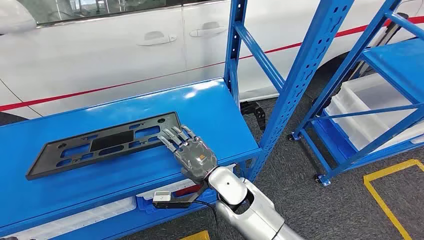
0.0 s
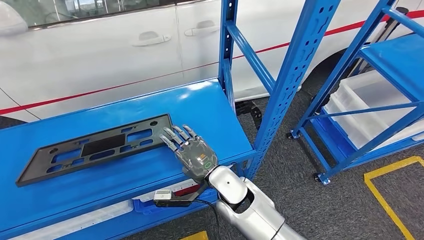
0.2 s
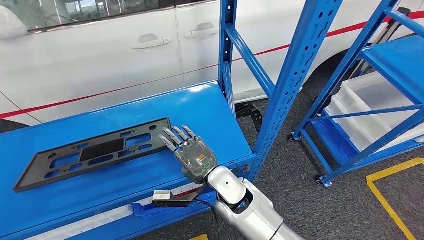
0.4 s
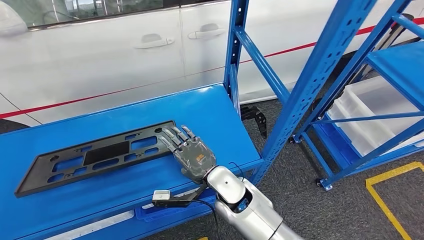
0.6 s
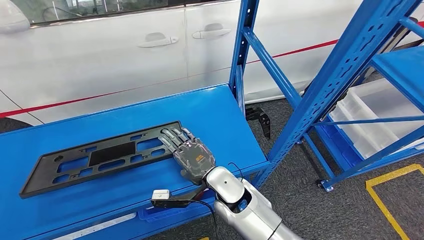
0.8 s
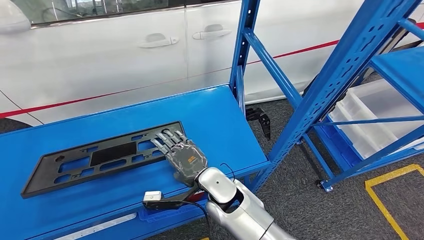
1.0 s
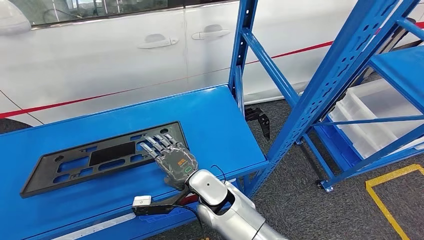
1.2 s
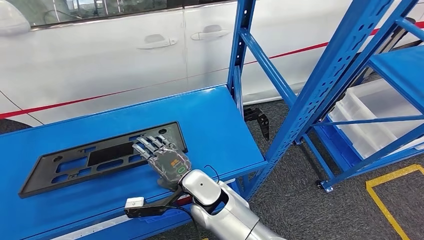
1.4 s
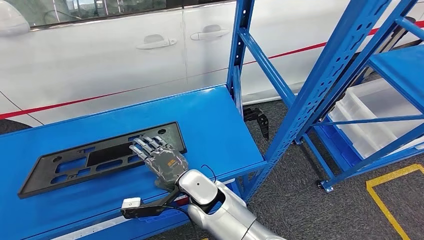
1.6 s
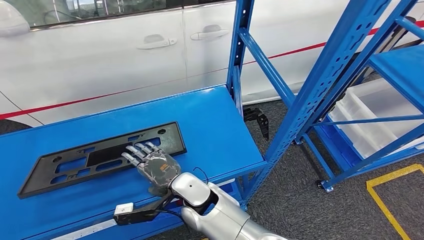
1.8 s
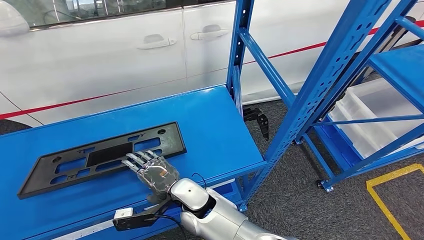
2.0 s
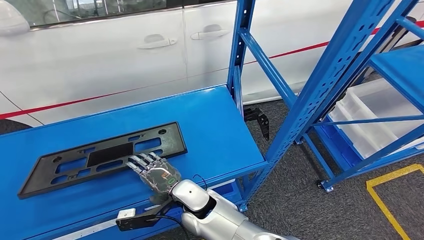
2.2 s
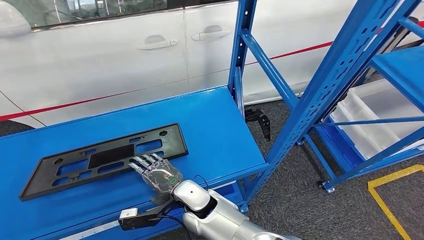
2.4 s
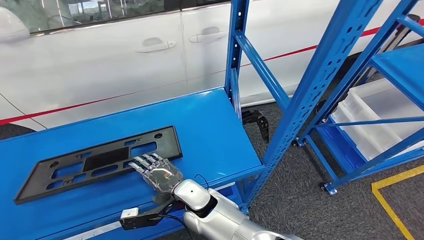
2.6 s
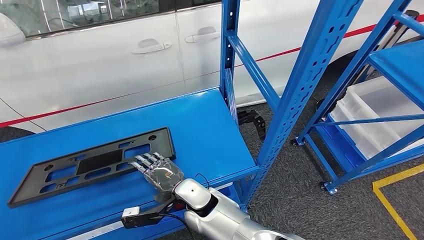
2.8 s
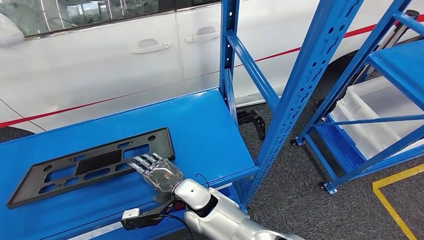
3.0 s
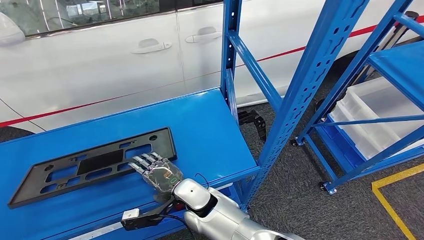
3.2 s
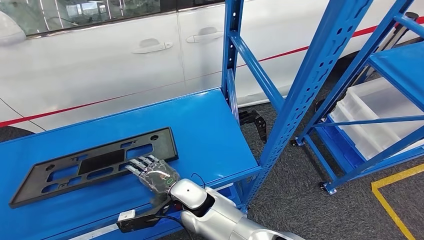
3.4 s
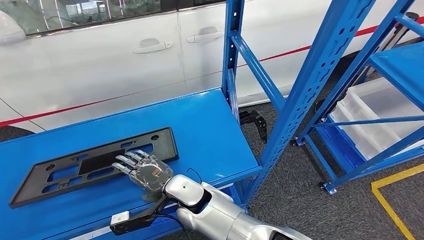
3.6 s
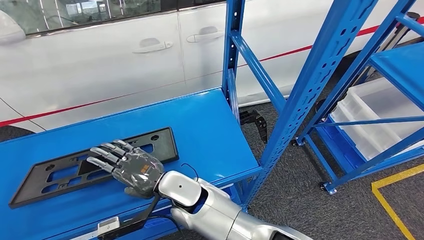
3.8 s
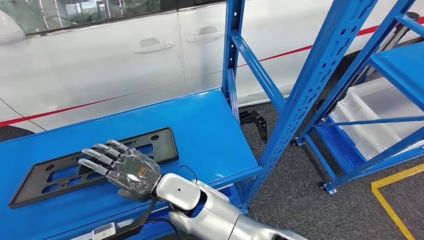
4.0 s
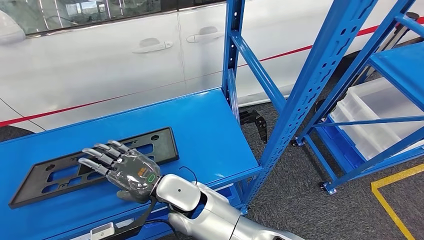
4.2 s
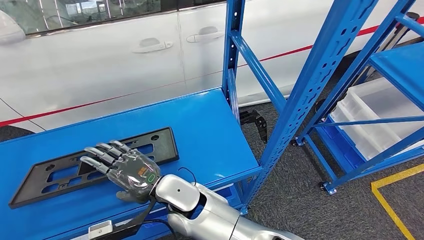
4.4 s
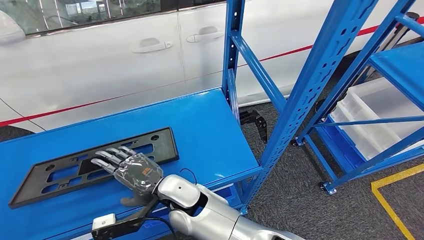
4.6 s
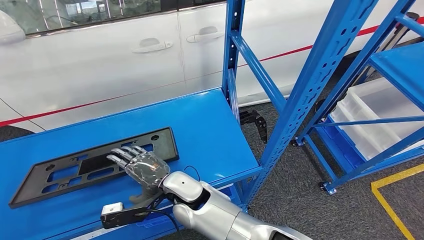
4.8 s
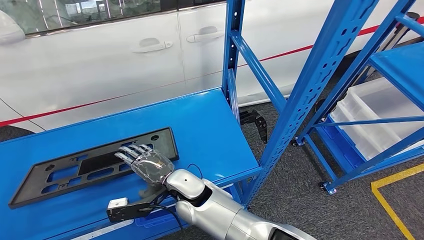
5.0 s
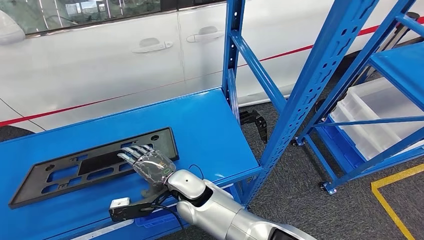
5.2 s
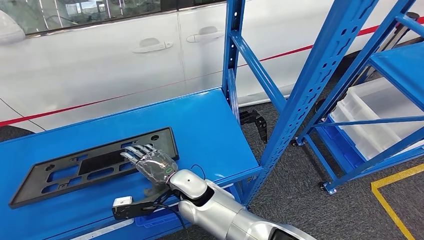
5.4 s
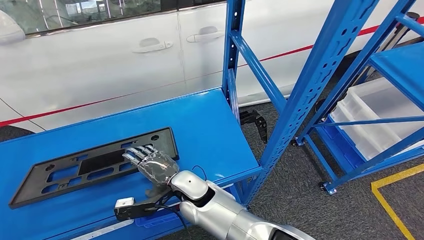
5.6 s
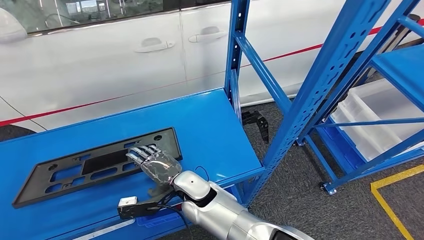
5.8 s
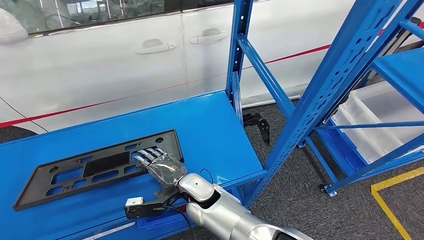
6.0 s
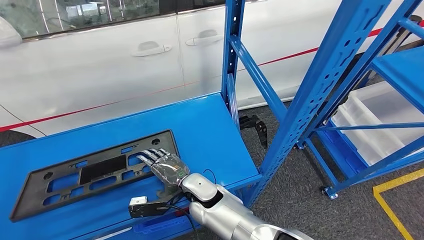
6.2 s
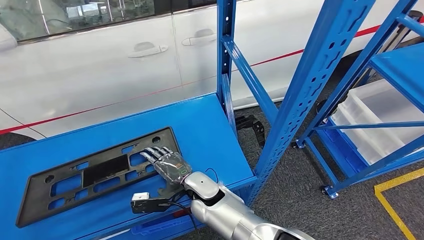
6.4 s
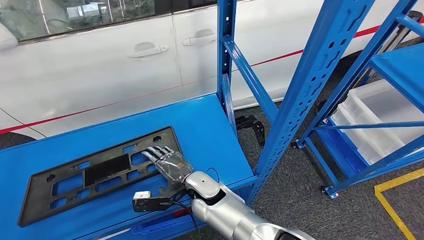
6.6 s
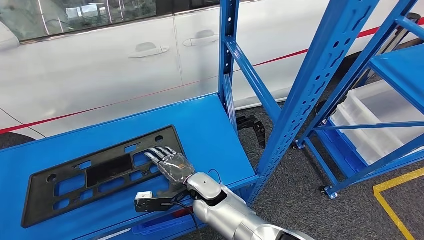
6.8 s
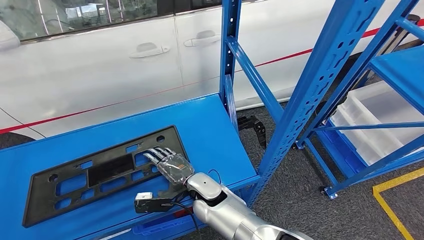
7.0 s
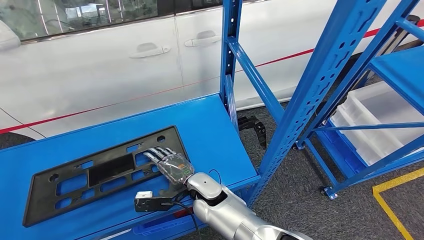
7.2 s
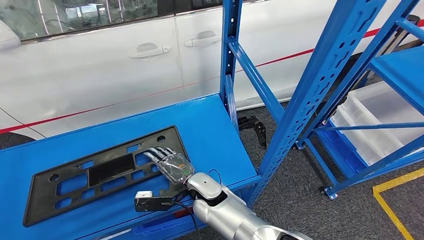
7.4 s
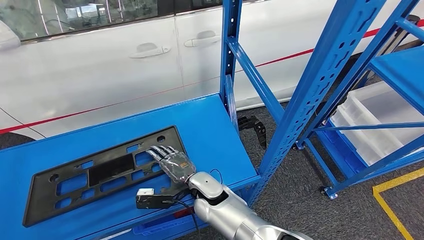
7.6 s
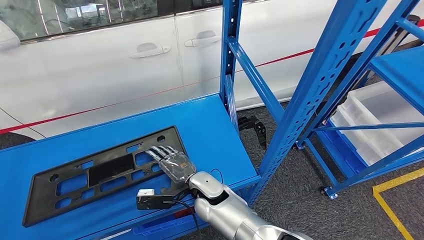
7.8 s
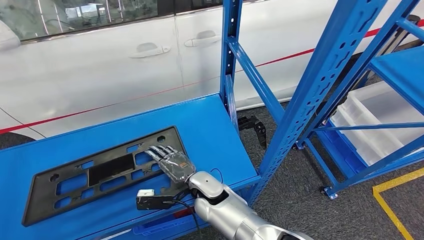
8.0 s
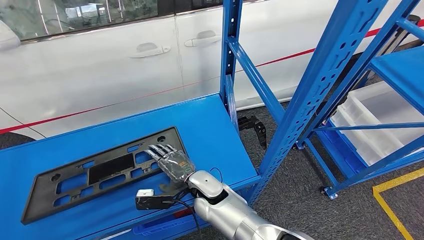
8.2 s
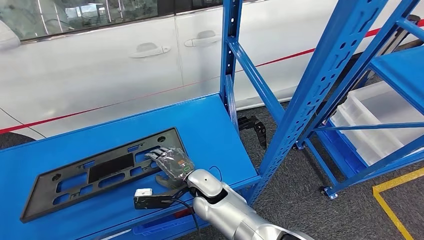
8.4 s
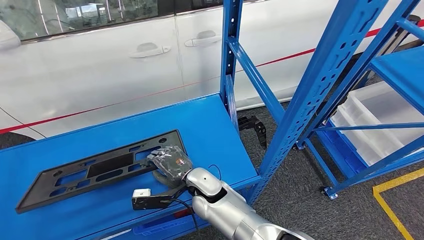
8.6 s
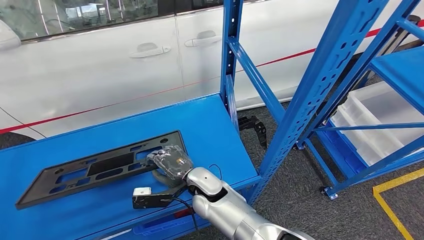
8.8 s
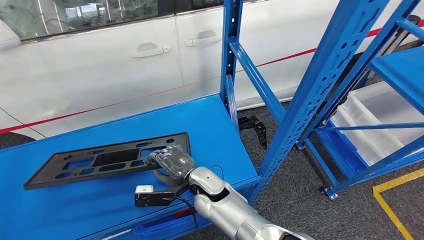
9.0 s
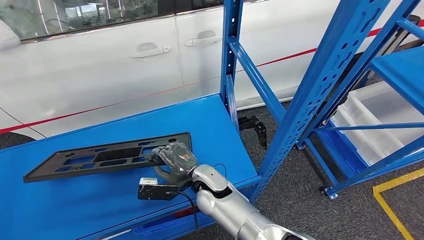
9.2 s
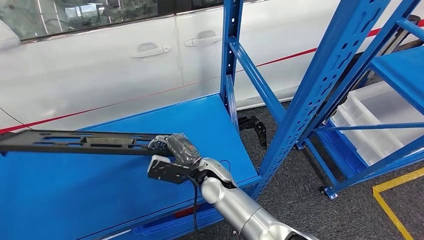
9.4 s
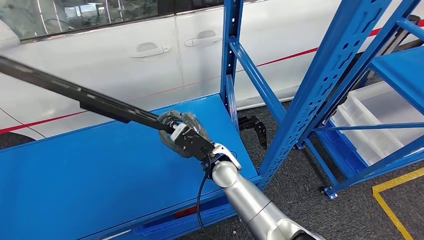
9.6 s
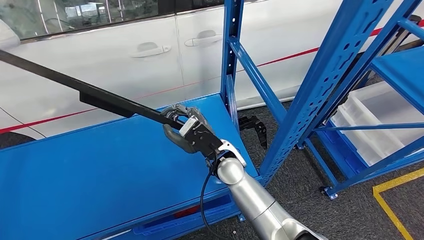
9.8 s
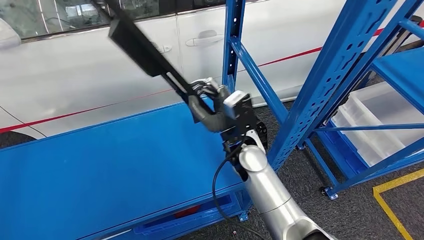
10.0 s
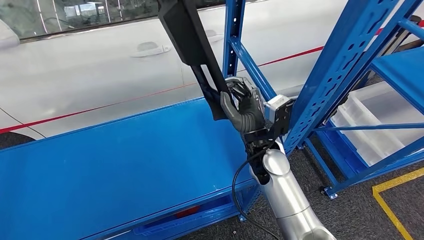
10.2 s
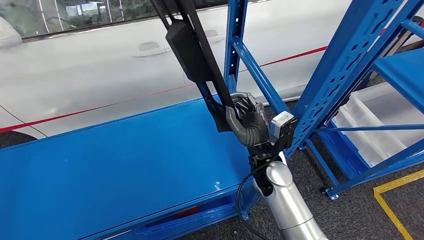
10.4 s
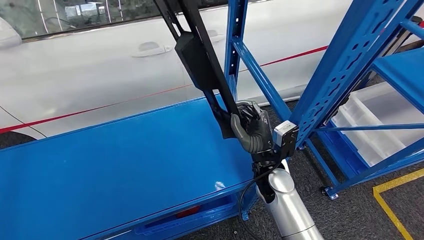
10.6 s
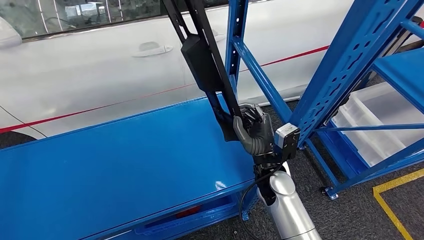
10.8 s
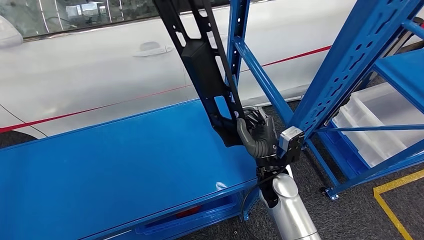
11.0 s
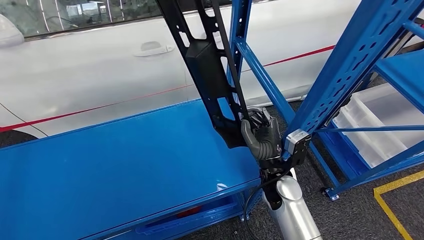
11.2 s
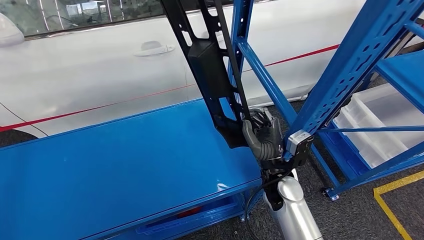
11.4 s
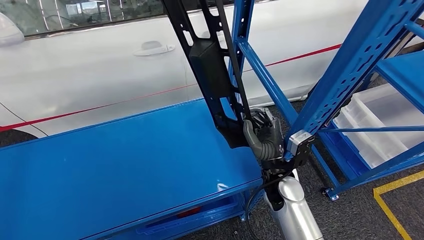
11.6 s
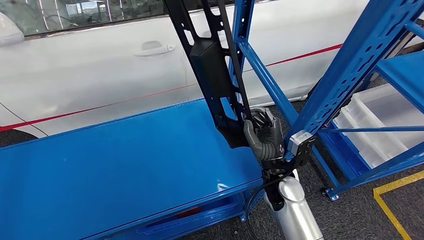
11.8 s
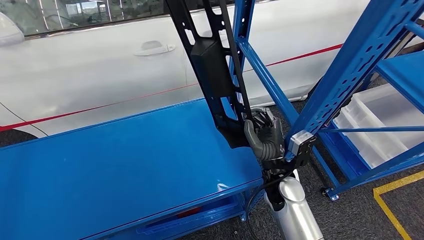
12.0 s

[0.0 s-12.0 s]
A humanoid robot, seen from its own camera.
Step, 0.0 to 9.6 s: Pick up the large material from the shelf.
3.0 to 4.4 s: The right hand travels upward by approximately 10 cm.
7.6 to 9.0 s: The hands stay close to where they were, moving slightly.
10.4 to 12.0 s: The right hand moves some 5 cm.

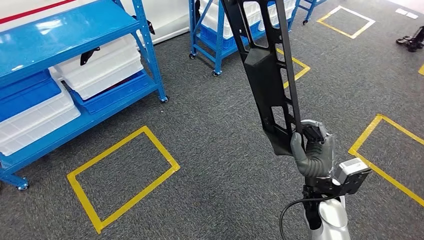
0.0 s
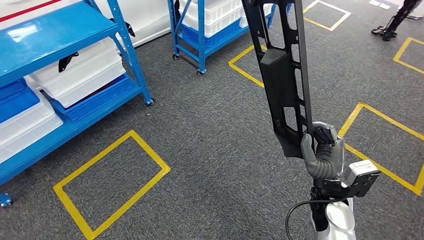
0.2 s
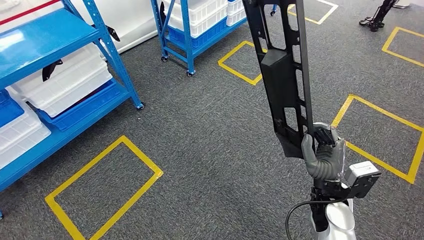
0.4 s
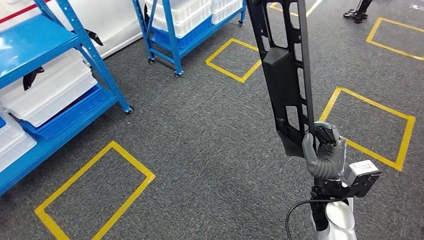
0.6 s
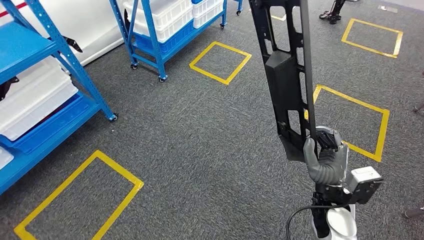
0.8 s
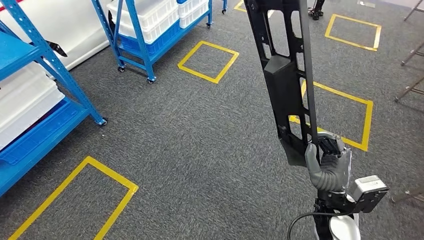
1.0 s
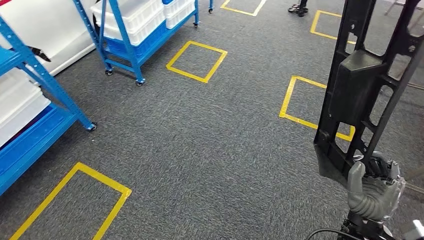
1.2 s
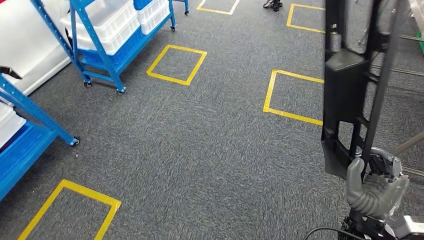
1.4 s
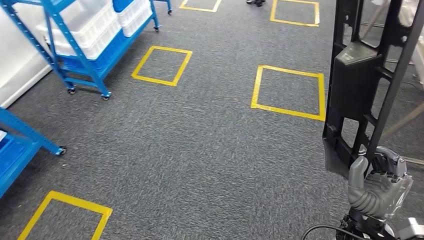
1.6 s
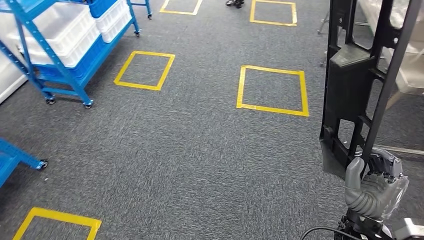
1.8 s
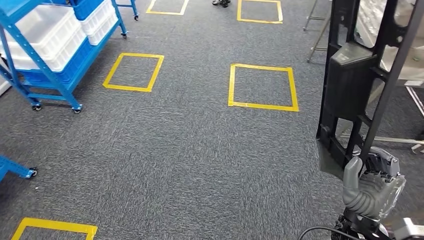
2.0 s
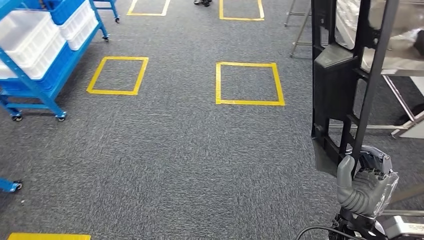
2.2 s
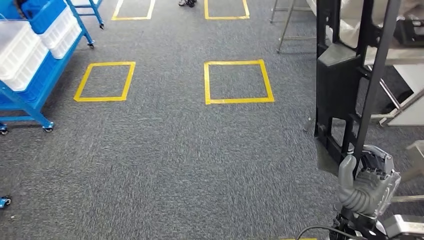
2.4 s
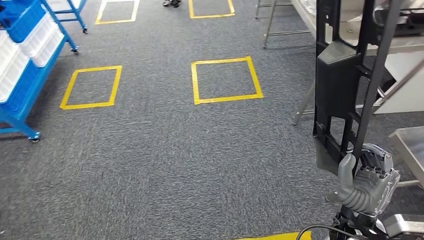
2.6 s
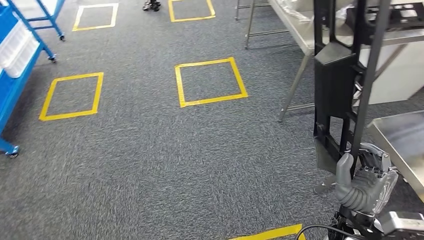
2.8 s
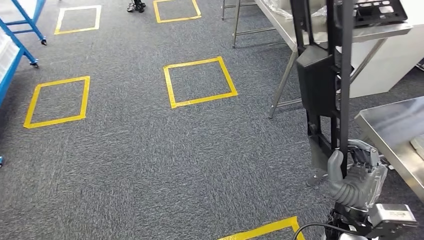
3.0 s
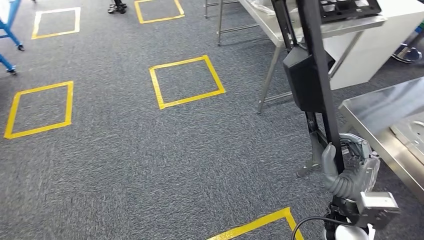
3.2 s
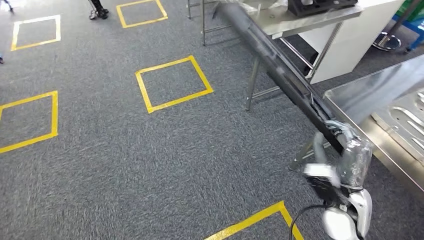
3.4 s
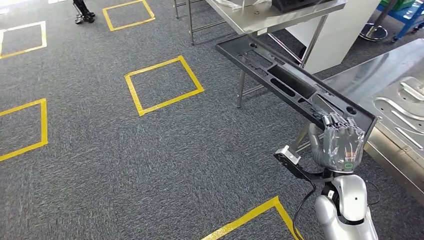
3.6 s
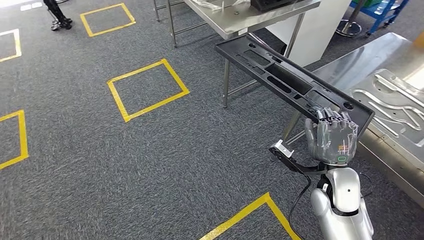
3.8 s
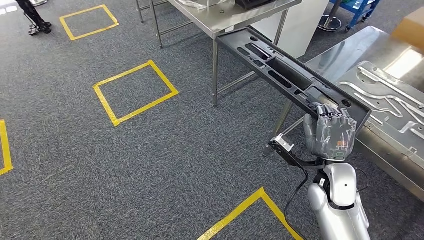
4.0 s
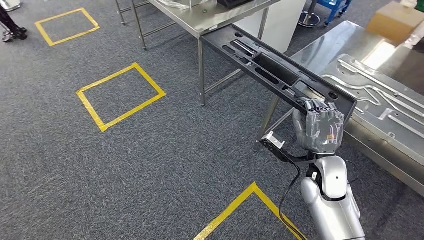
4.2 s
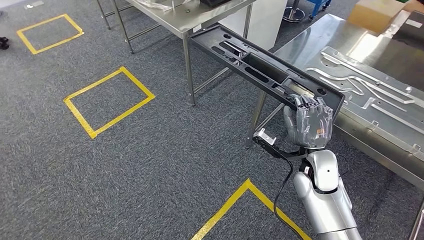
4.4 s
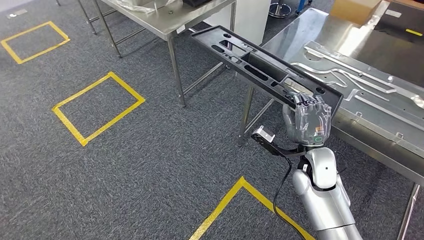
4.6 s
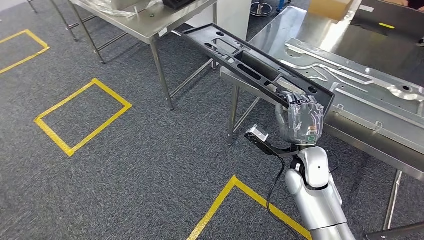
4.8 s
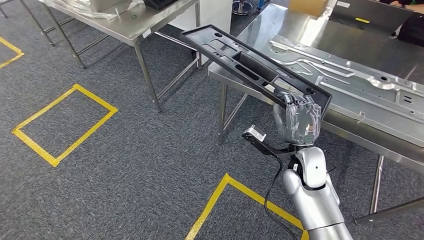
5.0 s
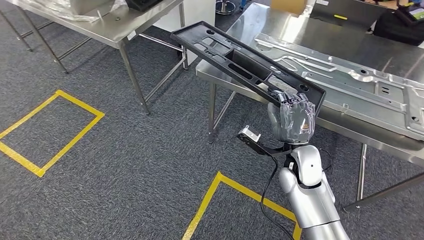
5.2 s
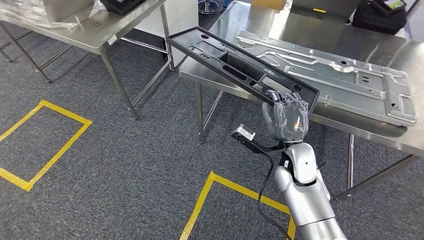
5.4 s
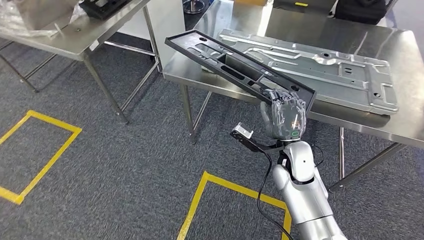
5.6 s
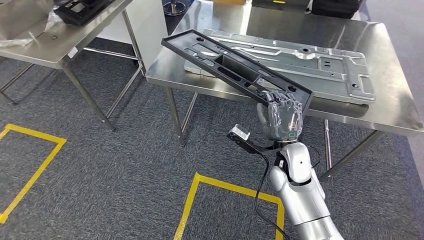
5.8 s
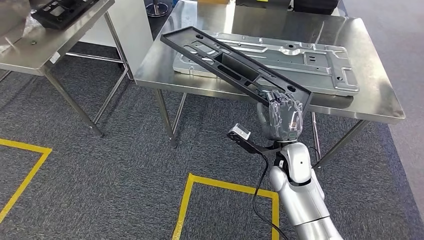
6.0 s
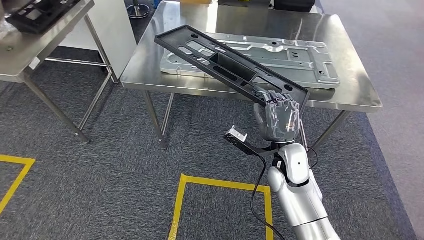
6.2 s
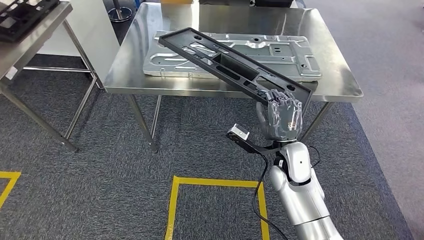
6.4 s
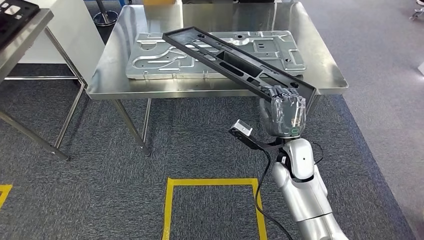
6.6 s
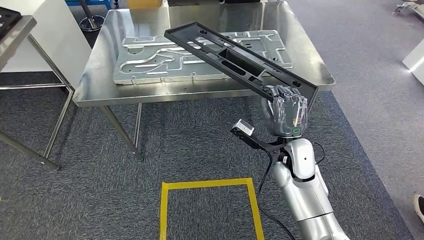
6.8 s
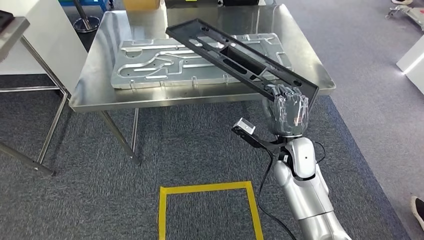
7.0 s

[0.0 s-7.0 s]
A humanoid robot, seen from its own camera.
Step, 0.0 to 5.0 s: Move the large material to the workbench.
